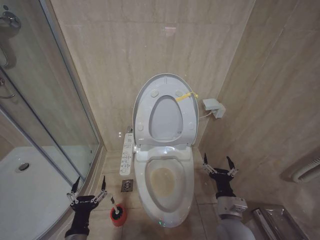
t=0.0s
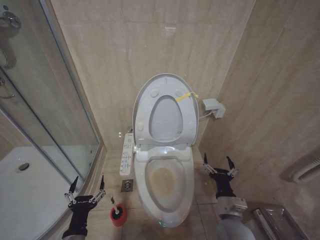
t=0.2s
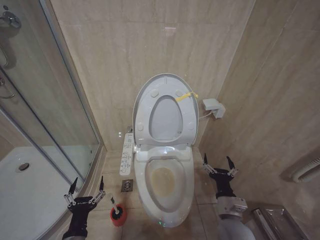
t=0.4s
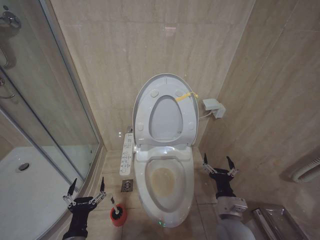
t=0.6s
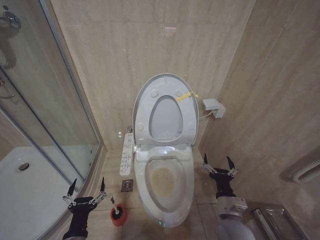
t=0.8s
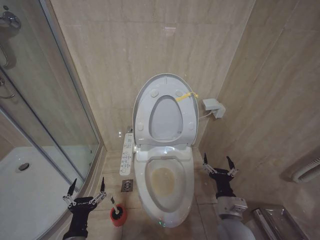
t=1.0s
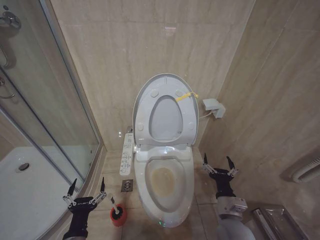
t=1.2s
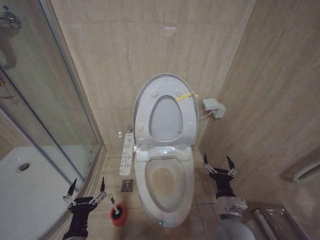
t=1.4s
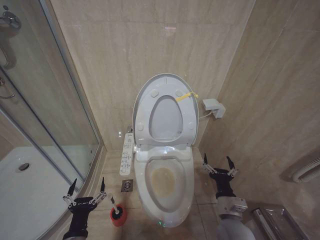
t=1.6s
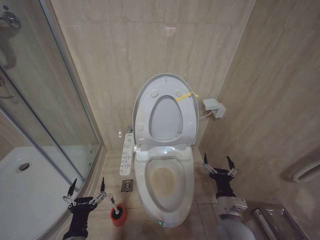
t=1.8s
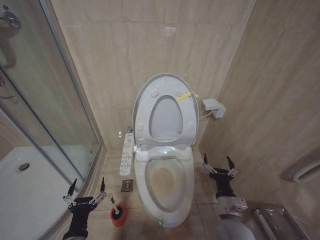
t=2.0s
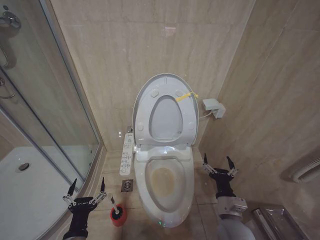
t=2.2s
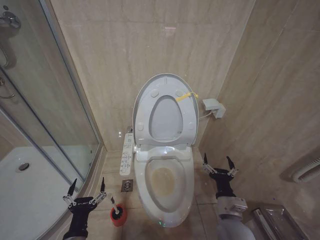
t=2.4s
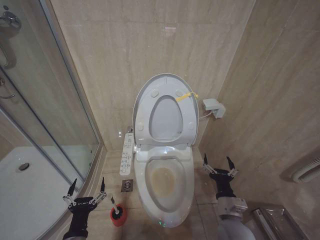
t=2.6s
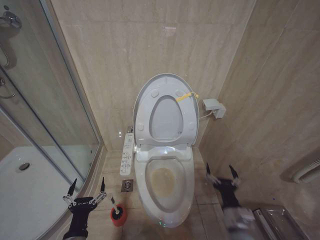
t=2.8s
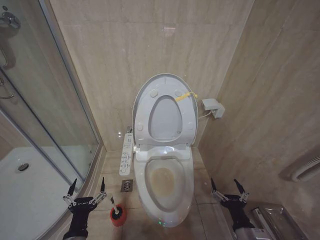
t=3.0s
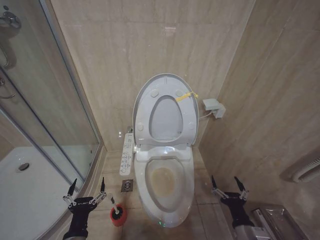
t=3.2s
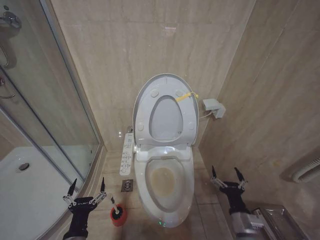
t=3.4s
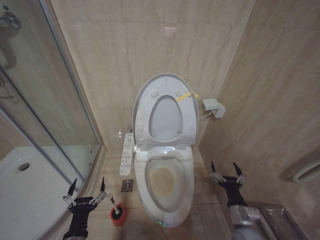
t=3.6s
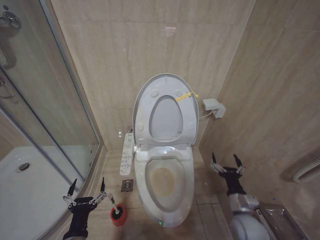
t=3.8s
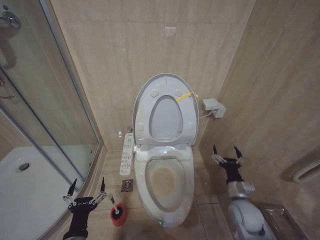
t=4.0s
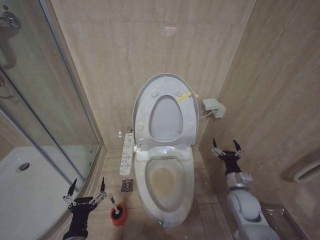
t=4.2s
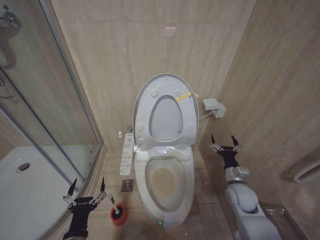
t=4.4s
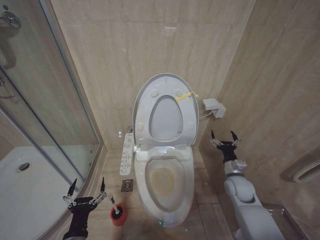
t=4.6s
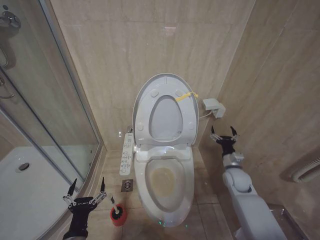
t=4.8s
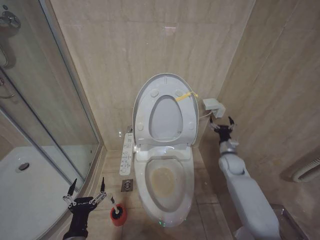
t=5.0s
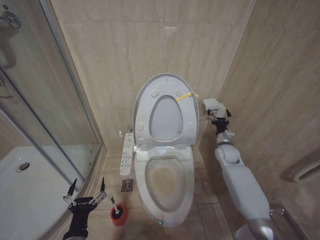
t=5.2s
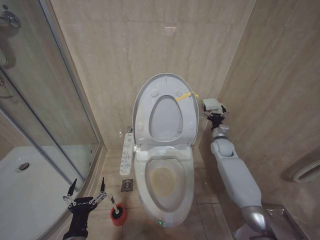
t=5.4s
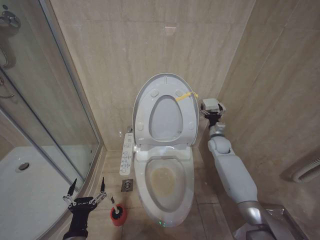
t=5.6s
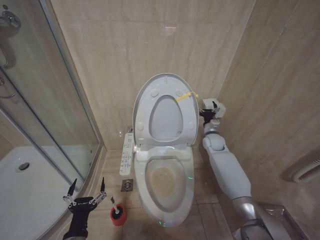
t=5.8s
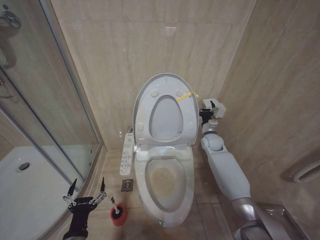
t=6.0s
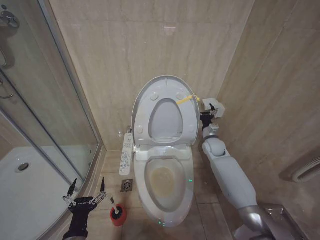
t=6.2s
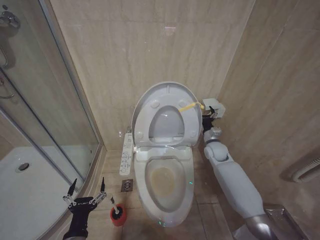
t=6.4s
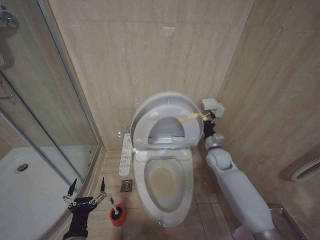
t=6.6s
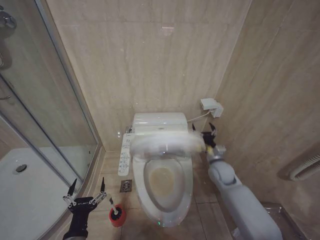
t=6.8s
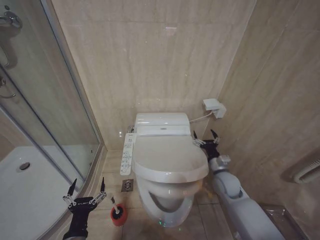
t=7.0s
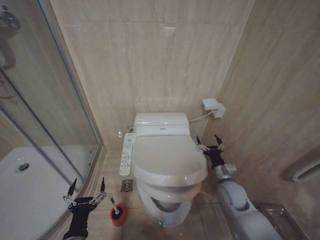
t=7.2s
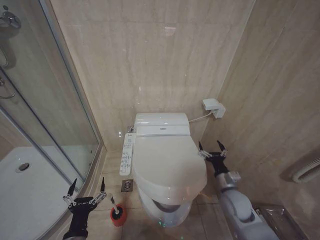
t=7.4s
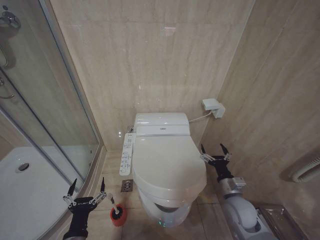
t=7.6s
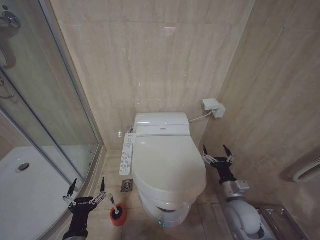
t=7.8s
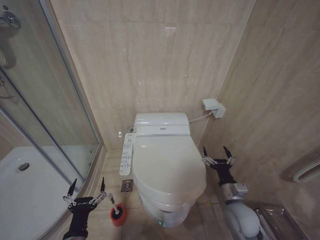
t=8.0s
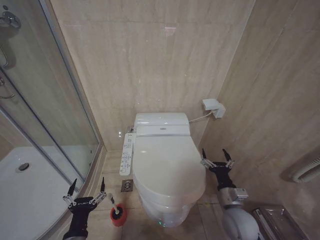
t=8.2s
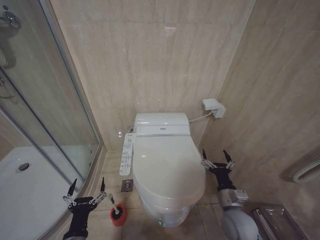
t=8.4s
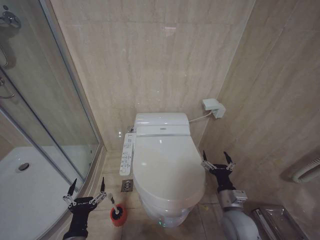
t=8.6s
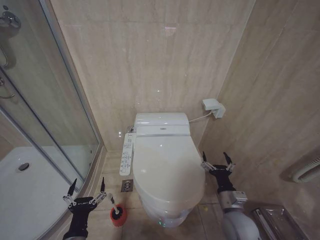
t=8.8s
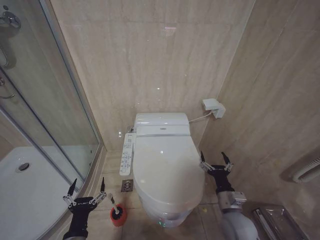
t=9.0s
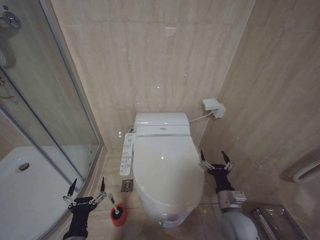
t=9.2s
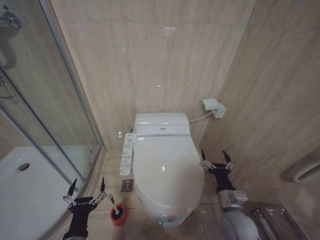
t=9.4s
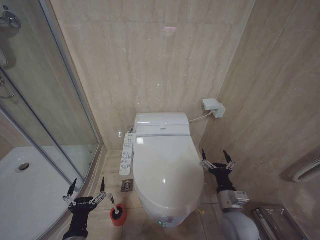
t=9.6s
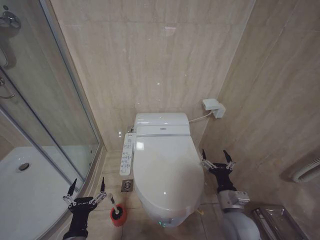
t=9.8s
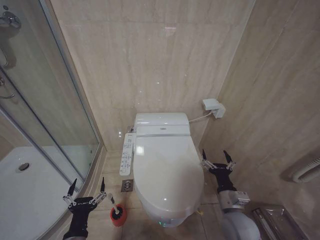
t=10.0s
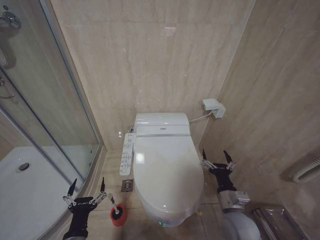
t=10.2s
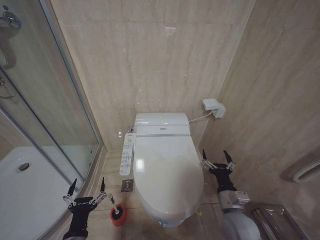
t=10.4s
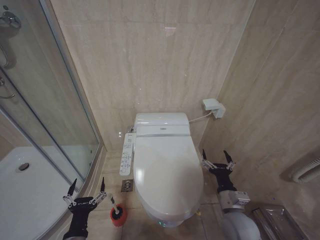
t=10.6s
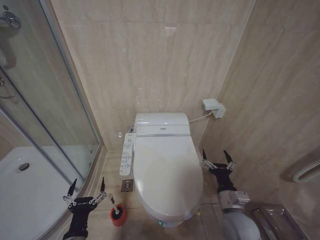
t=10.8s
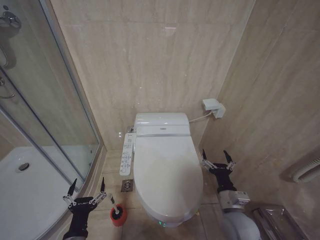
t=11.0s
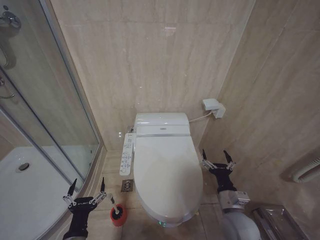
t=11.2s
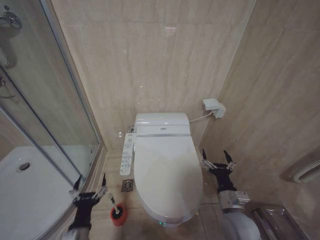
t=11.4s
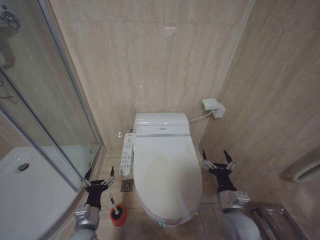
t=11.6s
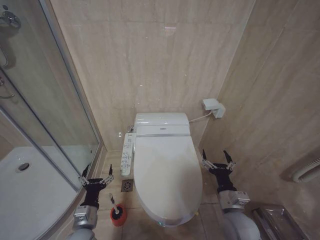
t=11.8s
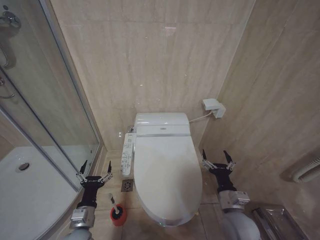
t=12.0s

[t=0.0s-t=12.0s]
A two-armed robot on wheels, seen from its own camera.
Task of the whole recording: Open the toilet lid, clean the toilet bowl with a toilet brush, close the toilet lid, and flush.
t=0.0s to t=1.6s: Both grippers stay about where they are.
t=1.6s to t=3.0s: The right gripper goes roughly 10 cm backward.
t=3.0s to t=4.4s: The right gripper heads forward, covering approximately 20 cm.
t=4.4s to t=6.0s: The right gripper goes about 20 cm forward.
t=6.0s to t=7.6s: The right gripper travels backward by about 25 cm.
t=7.6s to t=9.0s: The right gripper changes place by roughly 5 cm.
t=10.4s to t=12.0s: The left gripper is displaced forward by approximately 10 cm.

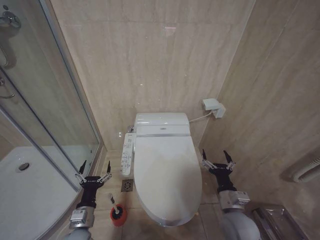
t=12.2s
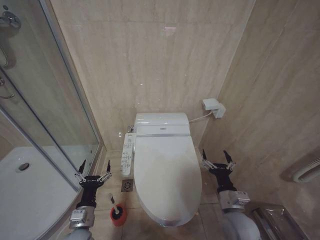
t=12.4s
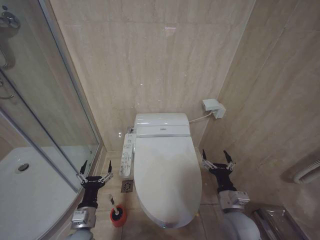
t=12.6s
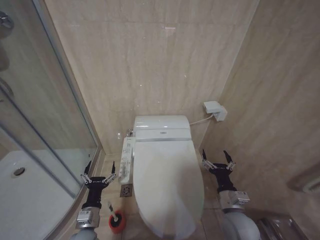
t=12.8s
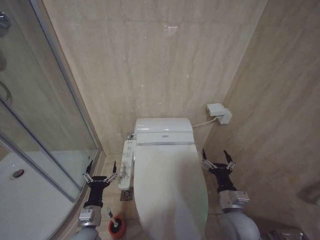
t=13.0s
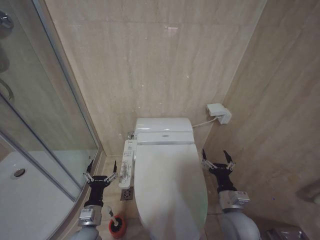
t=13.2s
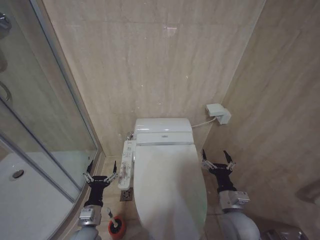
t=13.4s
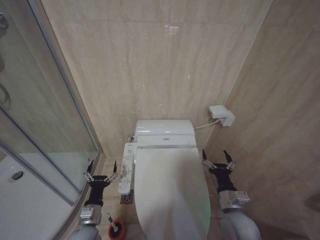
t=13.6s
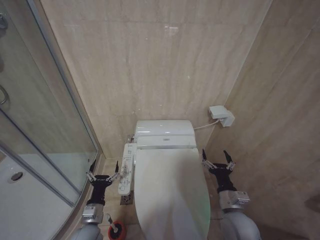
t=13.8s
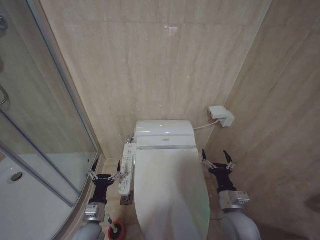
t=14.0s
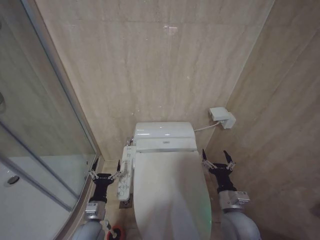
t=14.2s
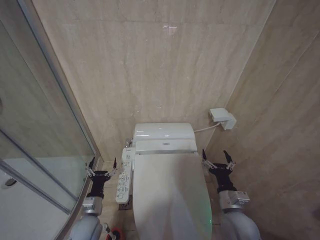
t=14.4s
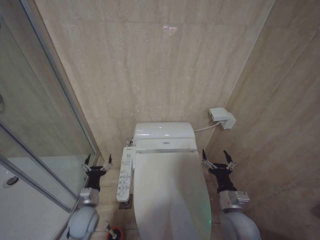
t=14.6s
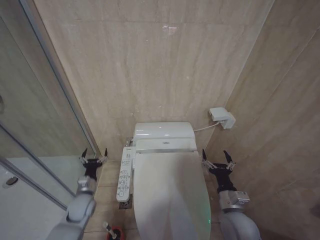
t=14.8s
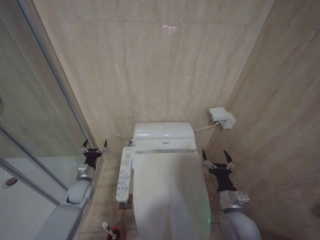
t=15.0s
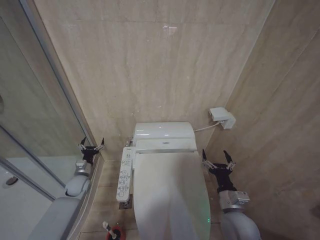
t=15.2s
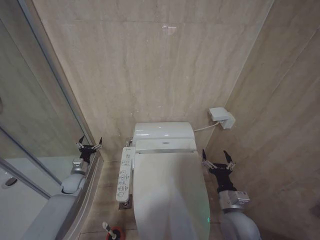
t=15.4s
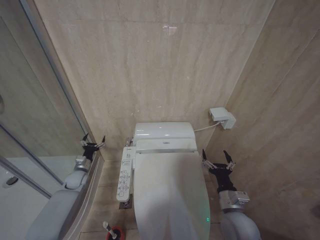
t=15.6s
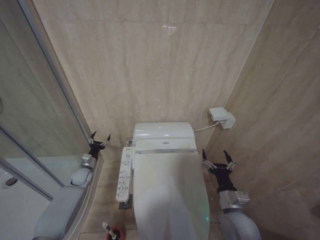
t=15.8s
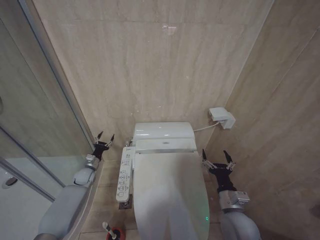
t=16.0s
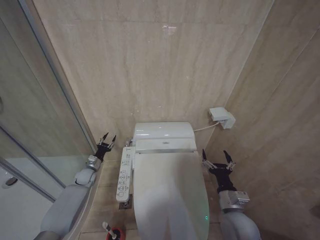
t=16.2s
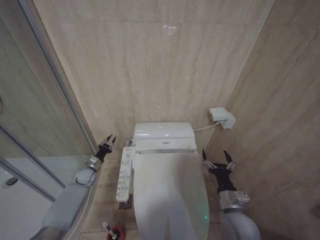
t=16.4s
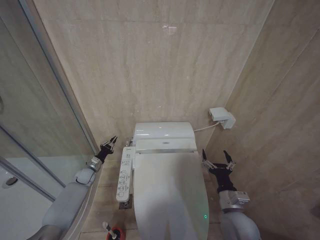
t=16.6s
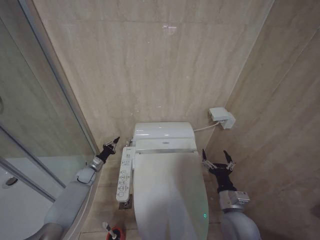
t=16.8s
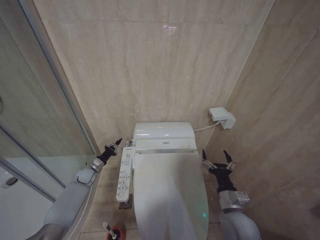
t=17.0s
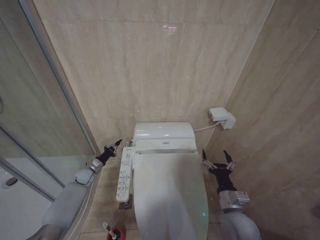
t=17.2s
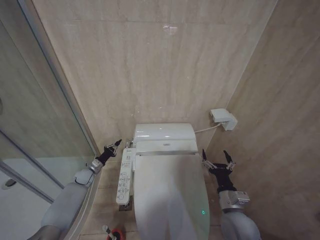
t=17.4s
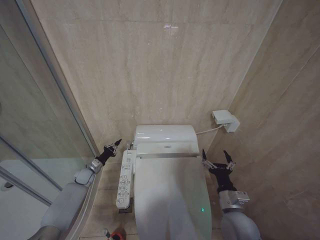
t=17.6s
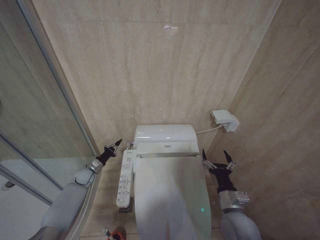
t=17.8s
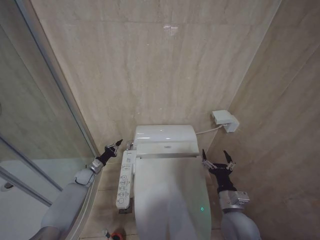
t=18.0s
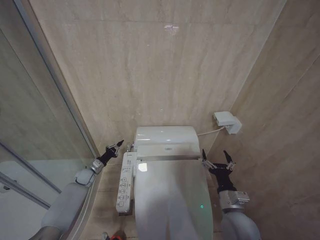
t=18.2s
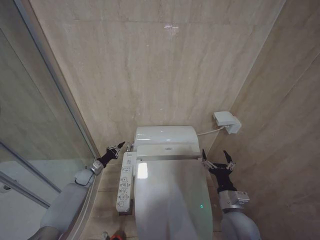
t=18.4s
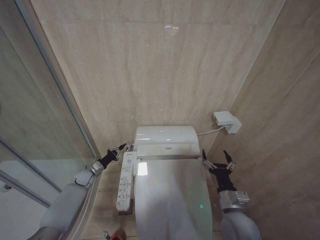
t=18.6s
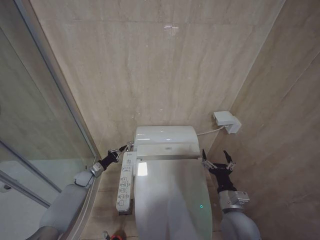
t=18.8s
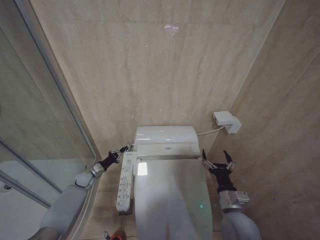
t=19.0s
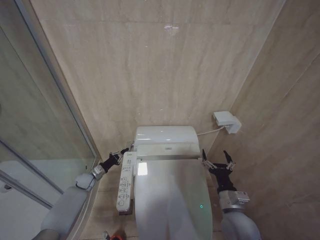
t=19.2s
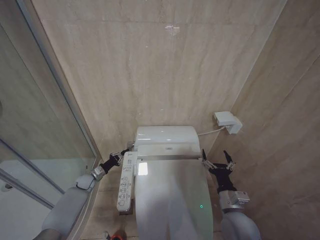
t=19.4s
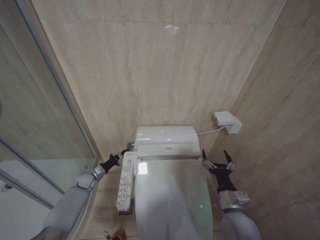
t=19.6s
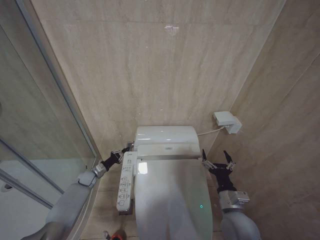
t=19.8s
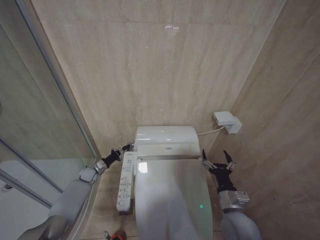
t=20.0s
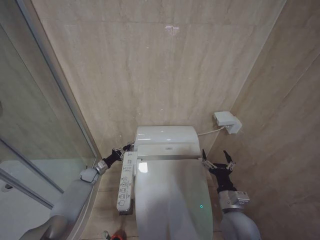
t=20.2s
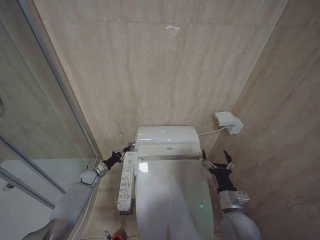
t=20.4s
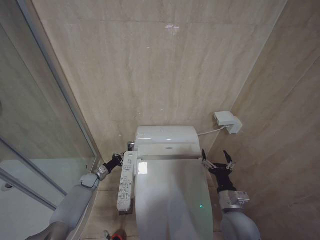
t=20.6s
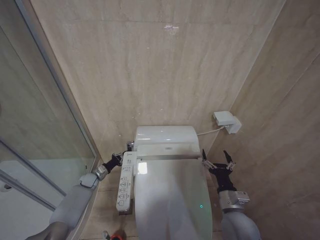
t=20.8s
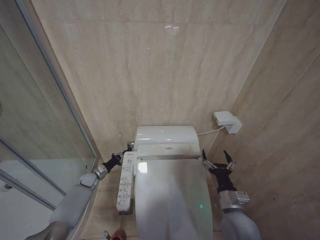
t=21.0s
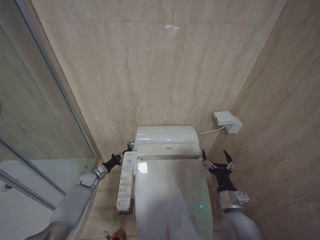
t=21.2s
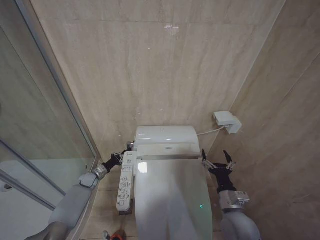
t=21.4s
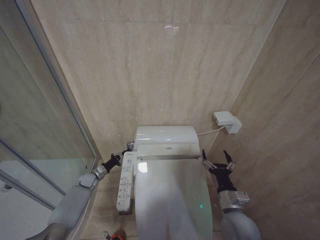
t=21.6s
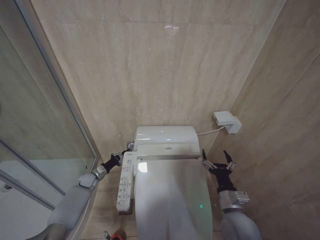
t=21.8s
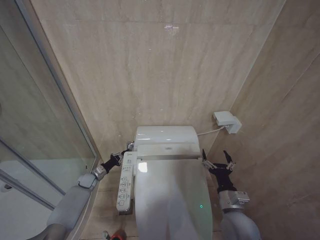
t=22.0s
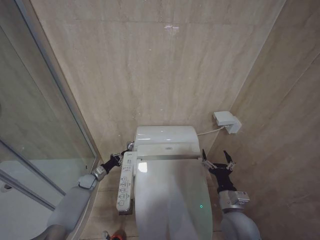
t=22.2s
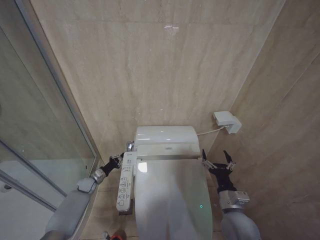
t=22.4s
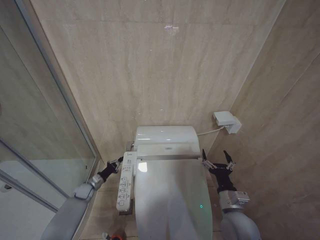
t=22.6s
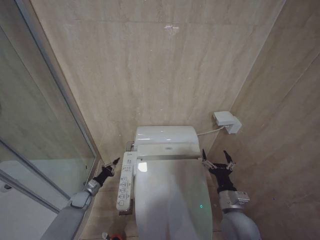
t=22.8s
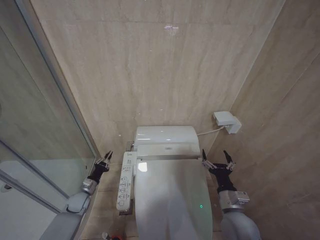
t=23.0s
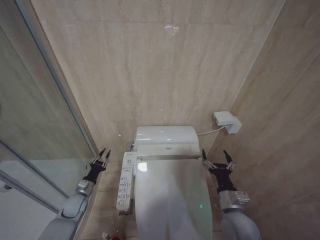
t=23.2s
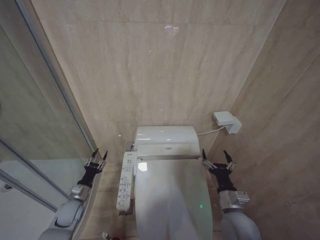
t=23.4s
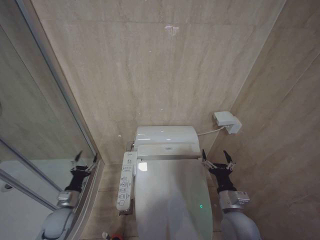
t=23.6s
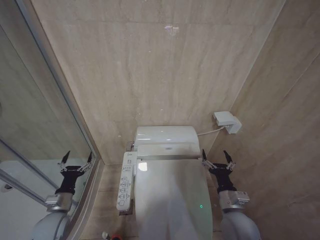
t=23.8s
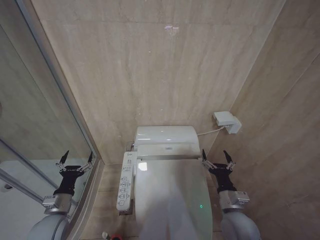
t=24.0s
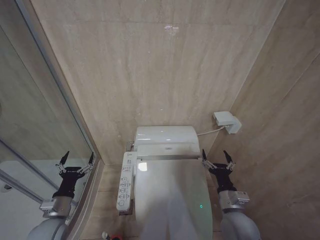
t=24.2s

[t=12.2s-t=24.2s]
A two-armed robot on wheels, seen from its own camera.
Task of the whole recording: Open the toilet lid, clean the toilet bowl with a toilet brush, close the toilet lid, and flush.
t=12.2s to t=13.8s: The grippers make only small movements.
t=13.8s to t=15.2s: The left gripper goes about 20 cm forward and to the left.
t=15.2s to t=16.6s: The left gripper travels forward by roughly 5 cm, and closes up.
t=16.6s to t=18.2s: The grippers stay close to where they were, moving slightly.
t=18.2s to t=19.8s: The grippers make only small movements.
t=21.2s to t=22.6s: The left gripper ends up approximately 5 cm from where it was.
t=22.6s to t=24.2s: The left gripper travels backward and upward by roughly 25 cm, and opens its fingers.
